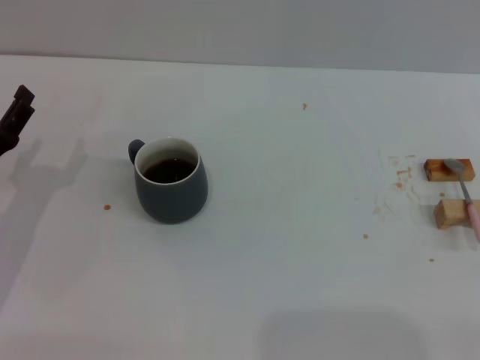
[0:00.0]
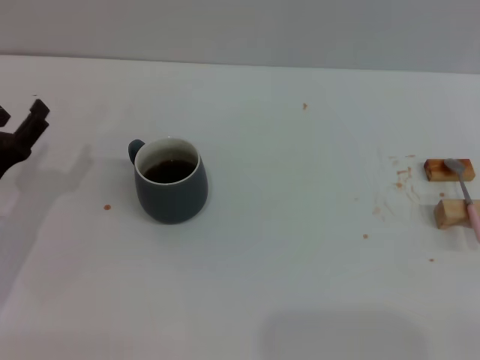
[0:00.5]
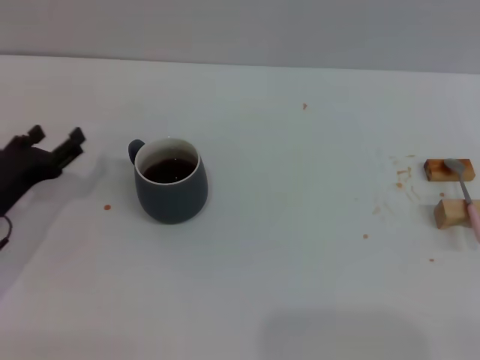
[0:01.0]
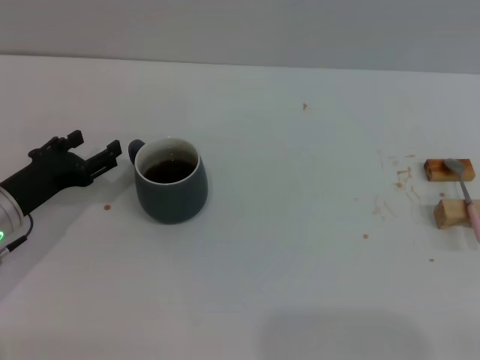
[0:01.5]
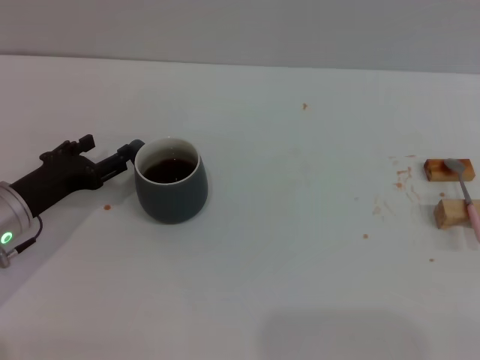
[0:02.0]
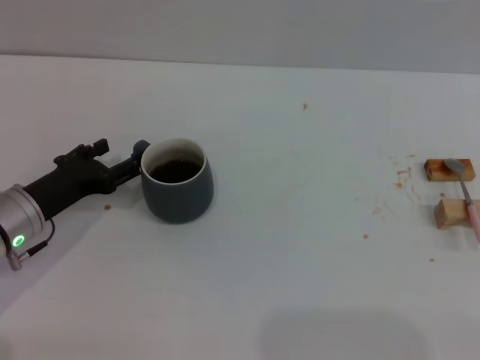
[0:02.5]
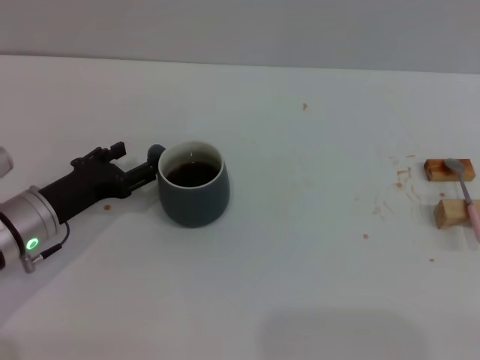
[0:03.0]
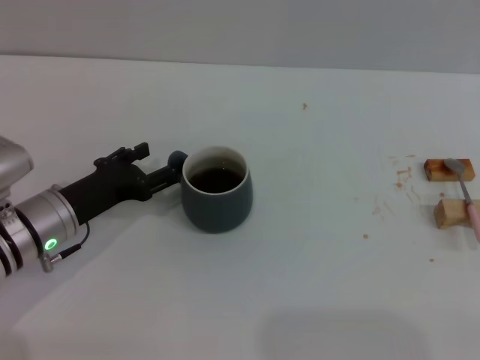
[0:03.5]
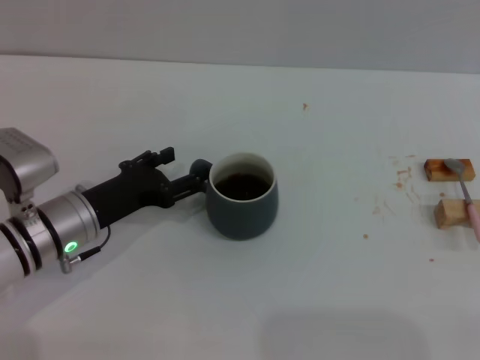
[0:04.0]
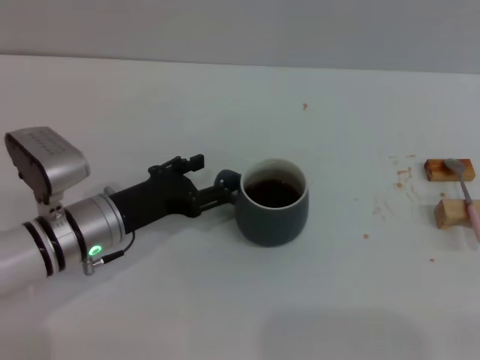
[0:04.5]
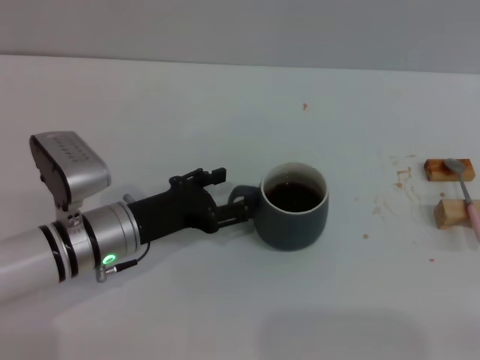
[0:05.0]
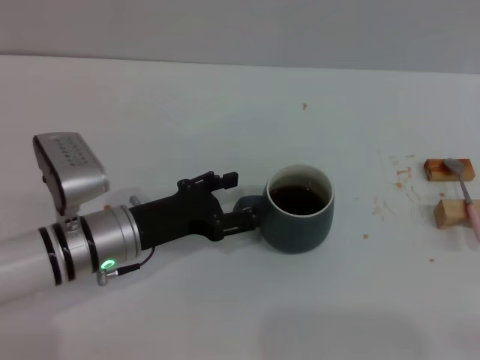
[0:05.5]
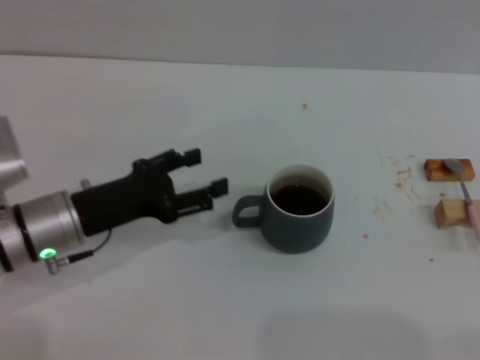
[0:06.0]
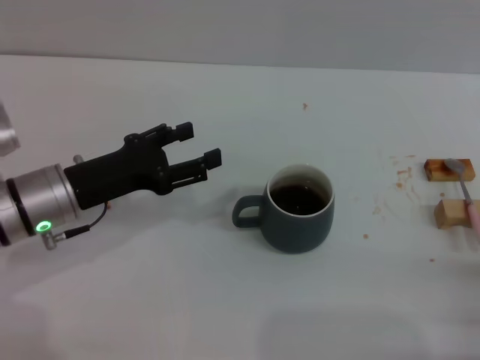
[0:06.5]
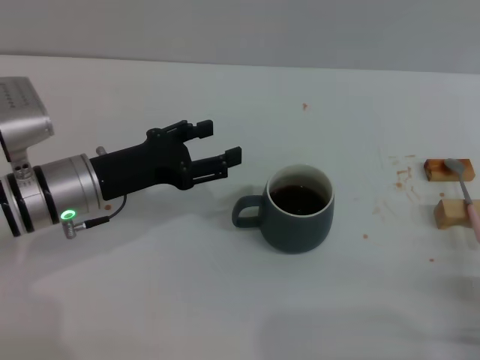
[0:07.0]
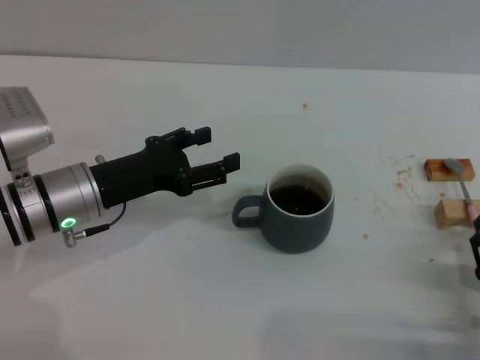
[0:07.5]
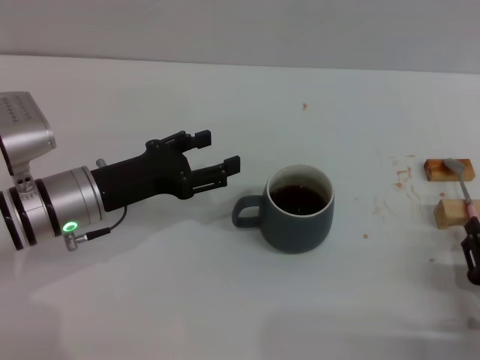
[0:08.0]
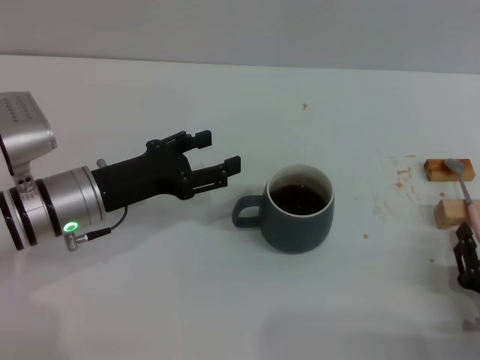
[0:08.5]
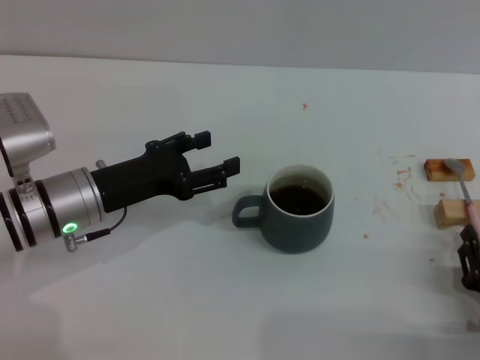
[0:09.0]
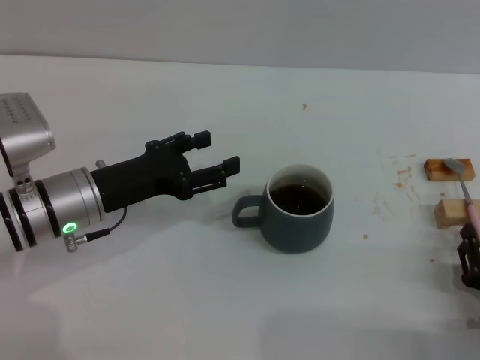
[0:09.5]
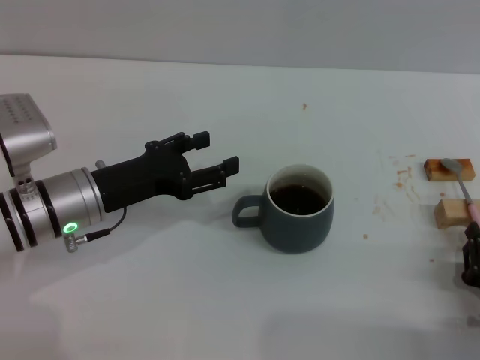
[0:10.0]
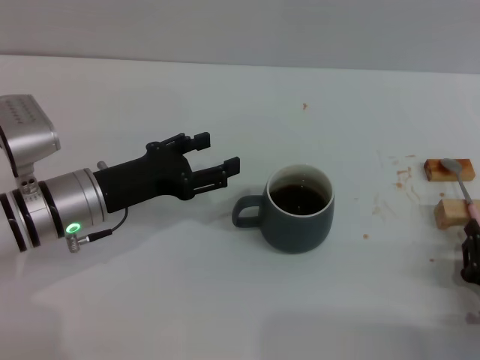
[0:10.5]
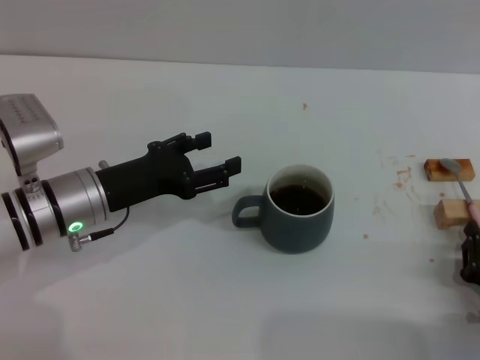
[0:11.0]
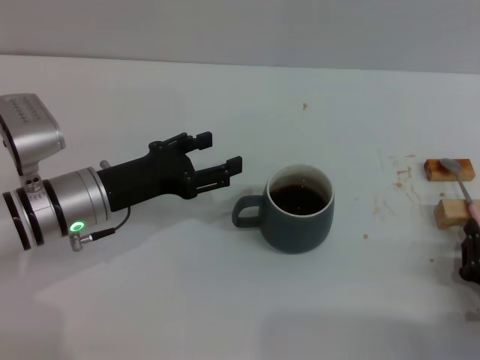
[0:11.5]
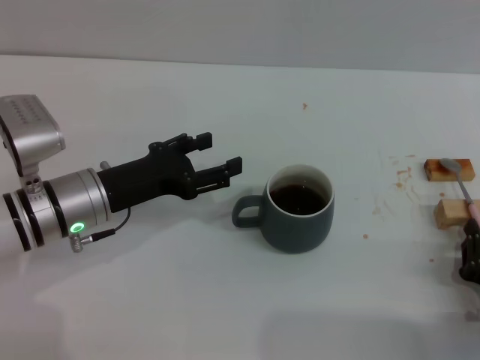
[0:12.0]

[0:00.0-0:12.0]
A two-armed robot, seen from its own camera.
Task of the whole recording: Move the grey cup to the center, lift the pink spoon, stir it three times in the cup, and put the spoon into the cup.
Step, 0:00.0 to 0:06.0: Move the cup with coffee to the center of view with the left gripper.
0:02.0 to 0:04.0: The left gripper travels to the right by roughly 5 cm.
0:04.0 to 0:06.0: The grippers stay close to where they were, moving slightly.
0:06.0 to 0:08.0: The right gripper moves to the left, about 10 cm.
0:08.0 to 0:10.0: The right gripper closes its fingers.
0:10.0 to 0:12.0: The right gripper closes.

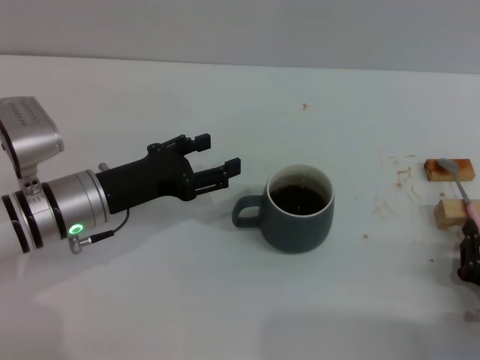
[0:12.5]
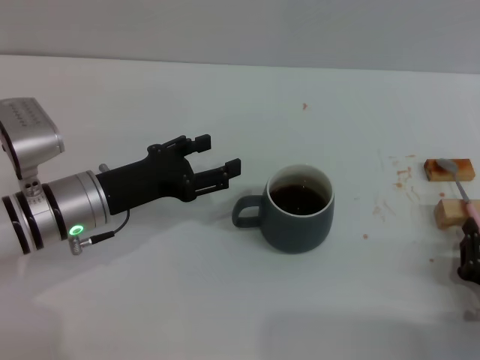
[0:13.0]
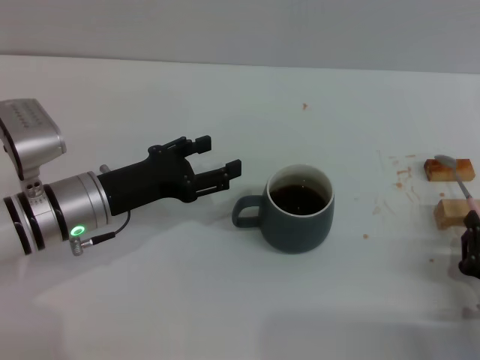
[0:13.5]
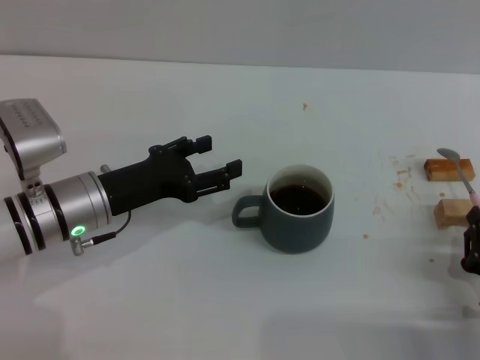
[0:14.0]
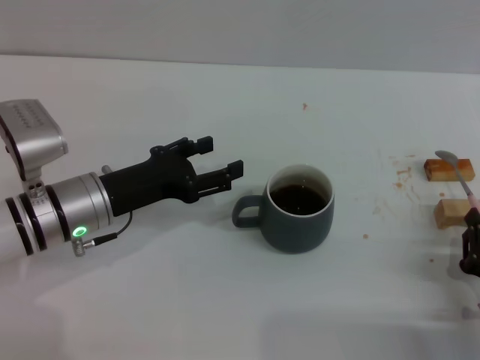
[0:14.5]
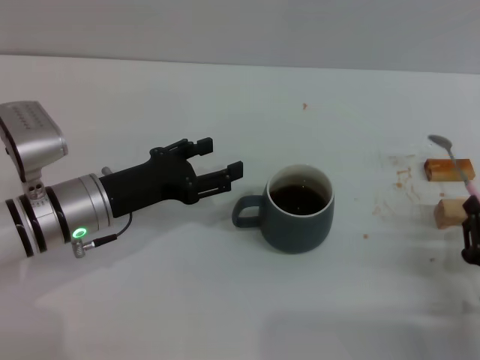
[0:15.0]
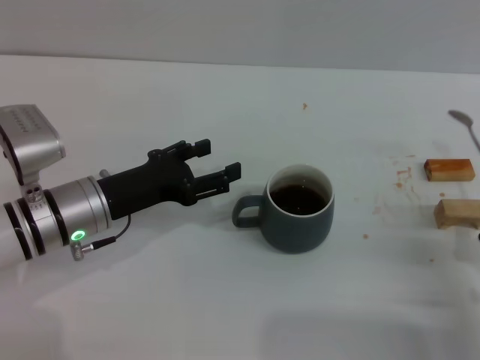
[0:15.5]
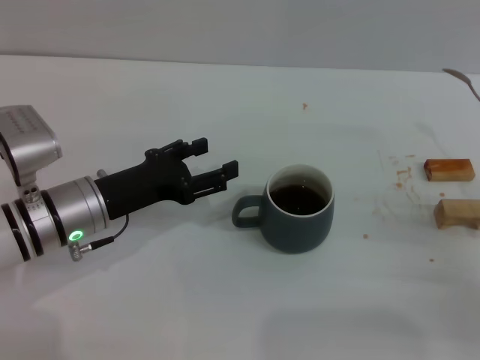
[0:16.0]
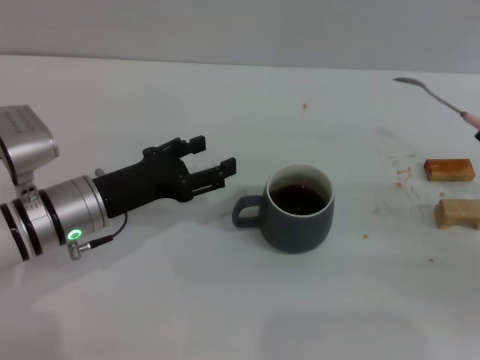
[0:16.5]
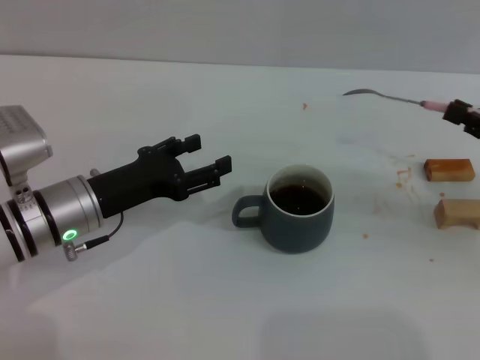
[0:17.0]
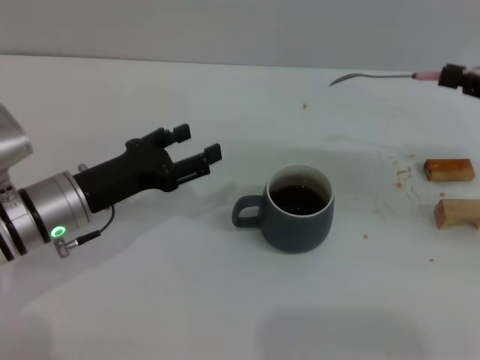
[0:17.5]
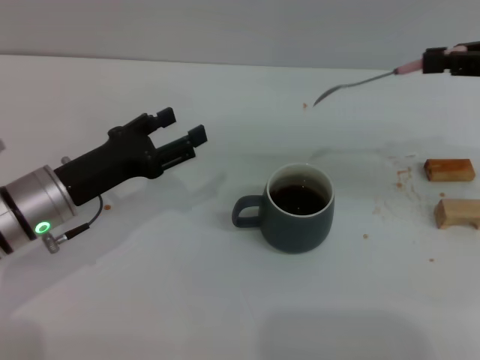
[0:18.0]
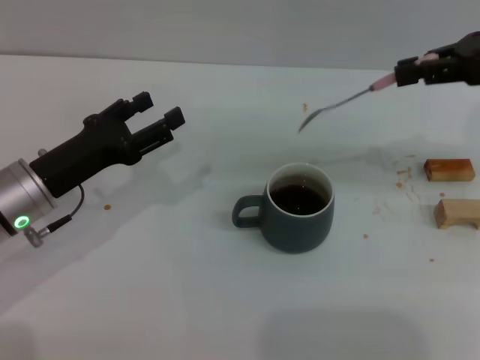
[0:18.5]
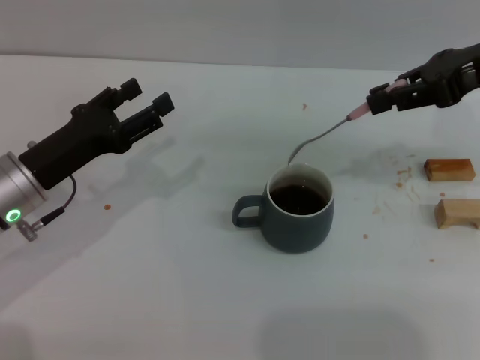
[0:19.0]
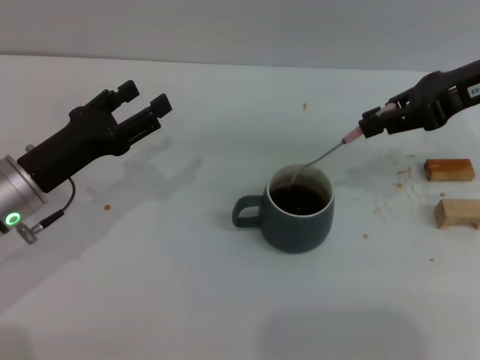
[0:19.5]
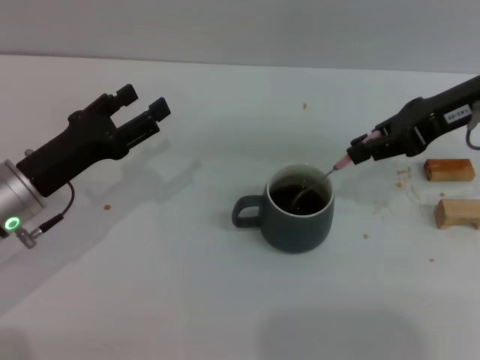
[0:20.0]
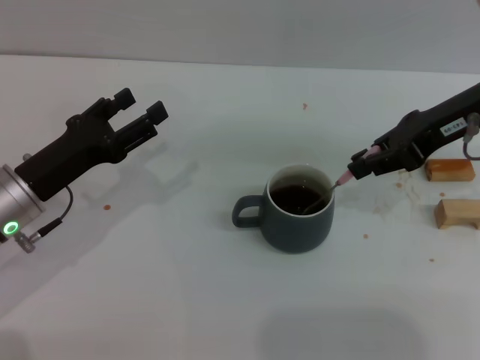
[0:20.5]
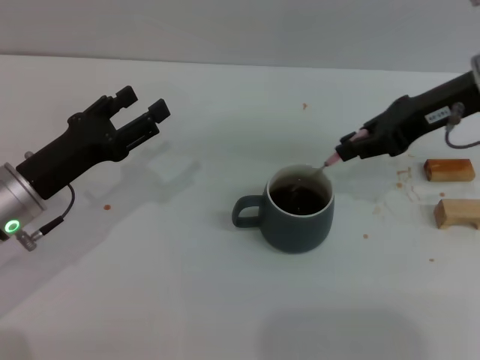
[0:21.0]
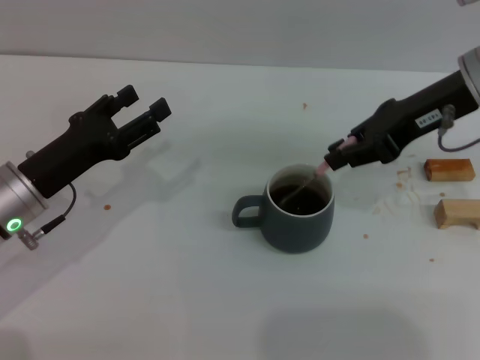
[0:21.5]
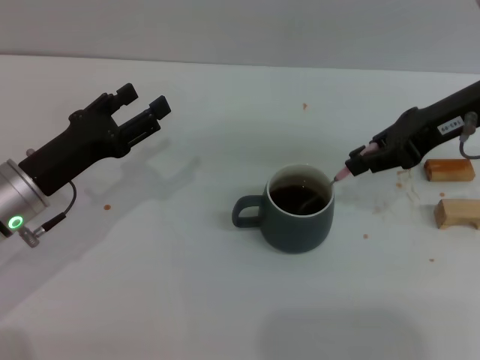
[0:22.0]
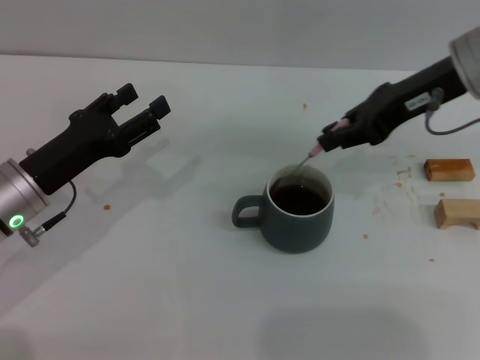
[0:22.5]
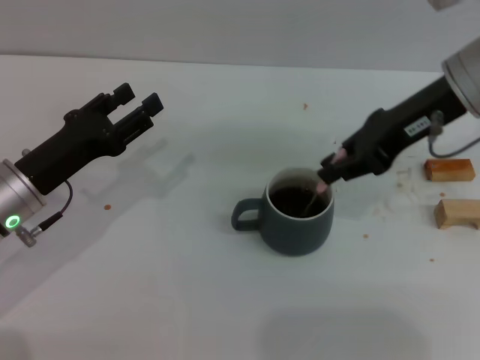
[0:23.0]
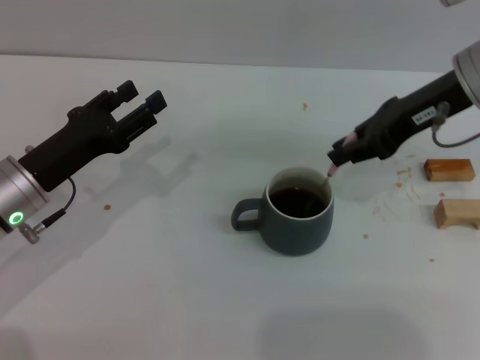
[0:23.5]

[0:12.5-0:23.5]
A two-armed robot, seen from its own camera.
Task of the whole recording: Move the grey cup to the center, lift the pink spoon, stir it three times in the cup, and put the spoon into the cup.
Step, 0:12.5 to 0:15.5: Pick up the spoon with the right gripper.
0:12.5 to 0:14.5: The two grippers keep their place.
0:14.5 to 0:16.0: The right gripper shifts approximately 5 cm to the right.
0:16.0 to 0:18.0: The right gripper is displaced upward and forward by roughly 25 cm.
0:18.0 to 0:20.0: The right gripper shifts roughly 10 cm to the left.
0:20.0 to 0:21.5: The grippers make only small movements.
0:21.5 to 0:23.5: The left gripper closes.

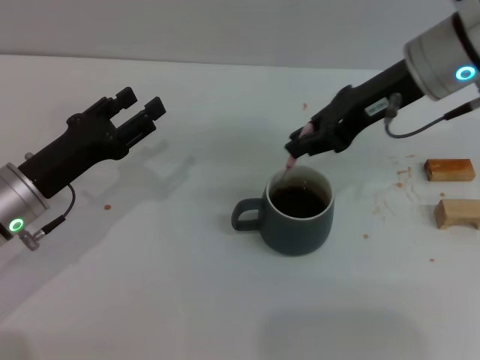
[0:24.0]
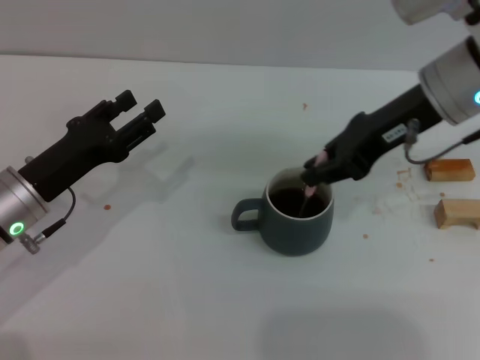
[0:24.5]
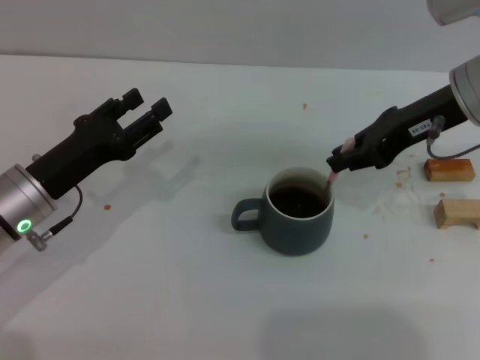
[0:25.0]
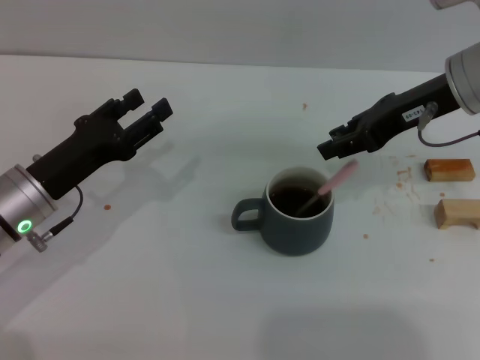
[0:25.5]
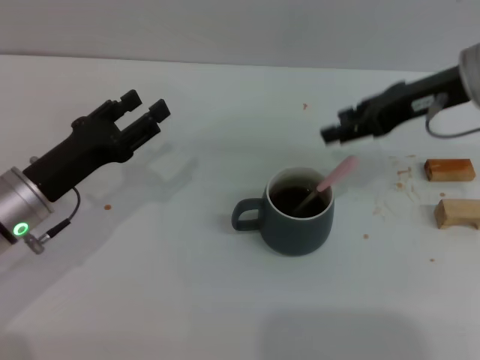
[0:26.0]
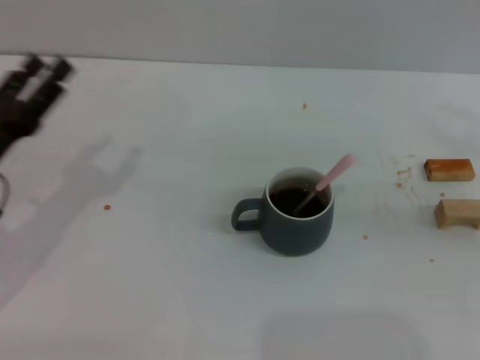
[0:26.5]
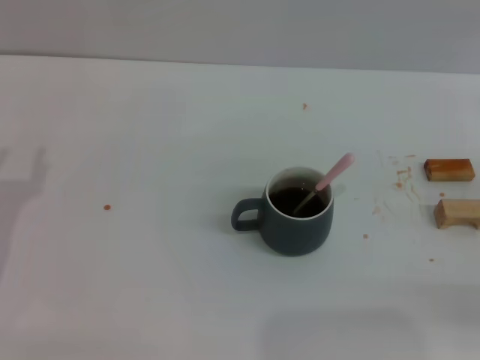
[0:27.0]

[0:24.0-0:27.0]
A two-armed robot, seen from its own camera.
Task of the whole recording: Move the grey cup to the center, lift the pink spoon, stir it three times in the cup, and put the spoon into the cup.
0:24.0 to 0:25.5: The grippers move only a little.
0:25.5 to 0:27.0: The left gripper moves to the left and backward, roughly 10 cm. The right gripper moves to the right, backward and downward, about 30 cm, and opens its fingers.
